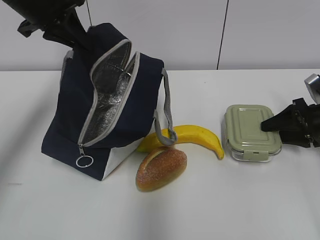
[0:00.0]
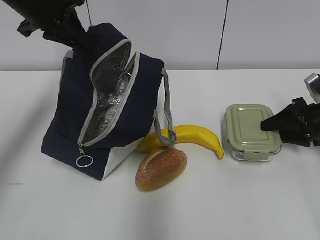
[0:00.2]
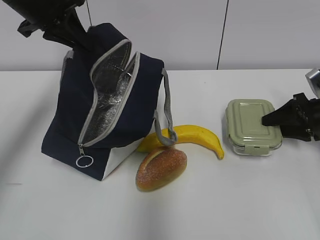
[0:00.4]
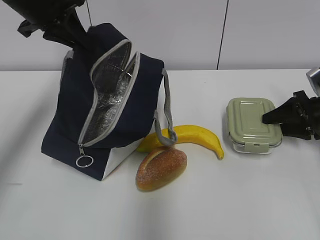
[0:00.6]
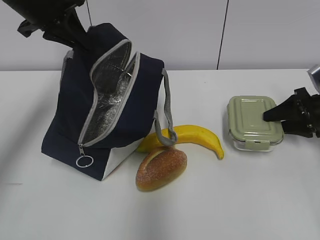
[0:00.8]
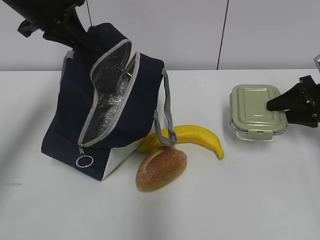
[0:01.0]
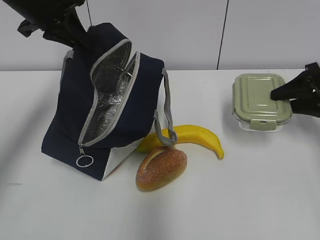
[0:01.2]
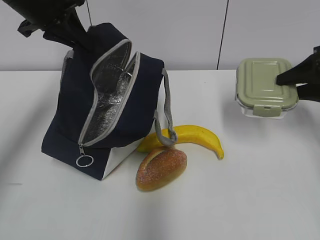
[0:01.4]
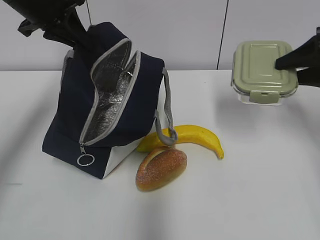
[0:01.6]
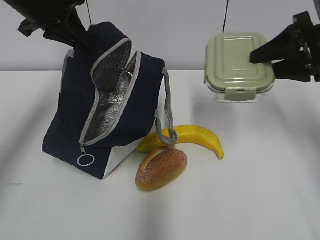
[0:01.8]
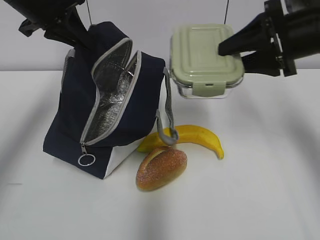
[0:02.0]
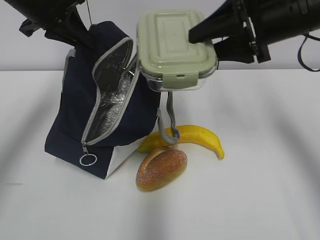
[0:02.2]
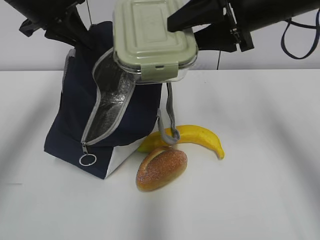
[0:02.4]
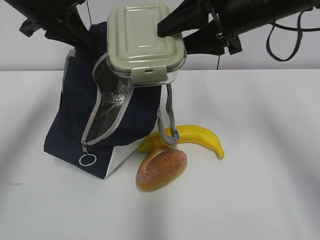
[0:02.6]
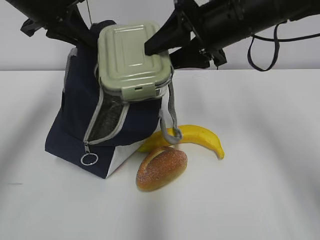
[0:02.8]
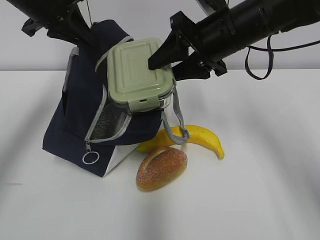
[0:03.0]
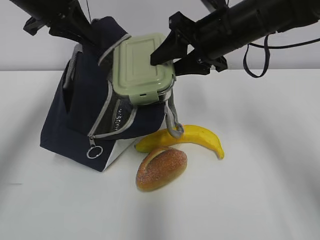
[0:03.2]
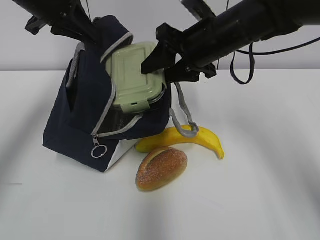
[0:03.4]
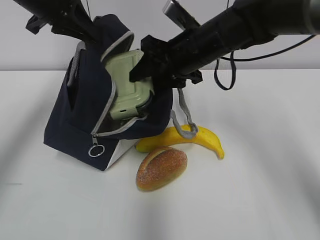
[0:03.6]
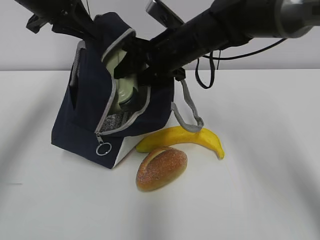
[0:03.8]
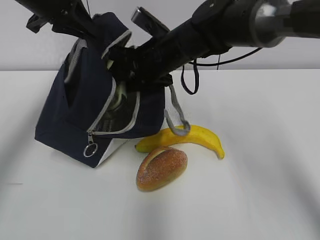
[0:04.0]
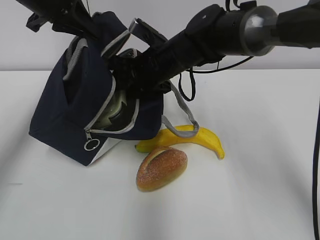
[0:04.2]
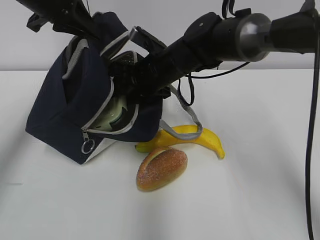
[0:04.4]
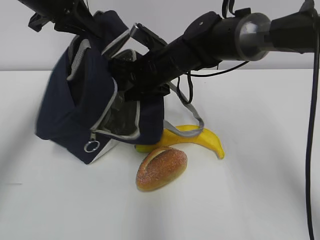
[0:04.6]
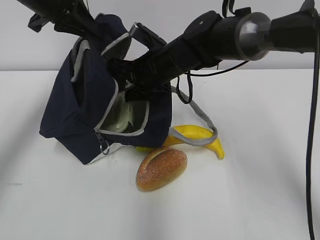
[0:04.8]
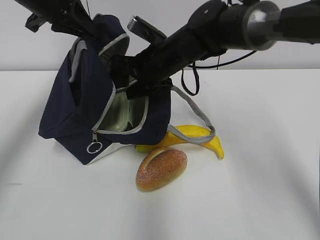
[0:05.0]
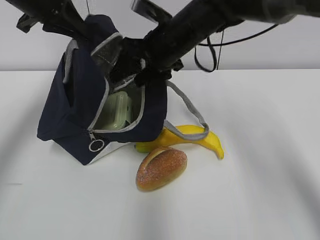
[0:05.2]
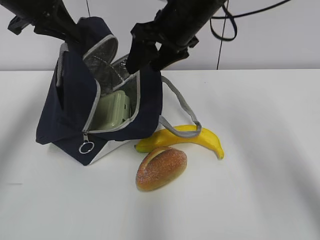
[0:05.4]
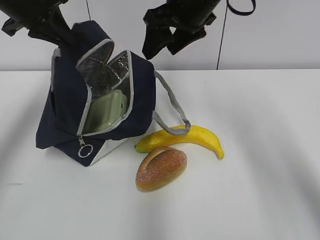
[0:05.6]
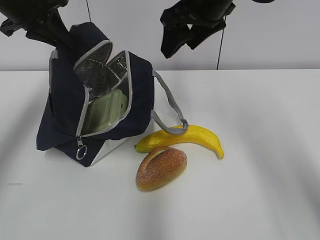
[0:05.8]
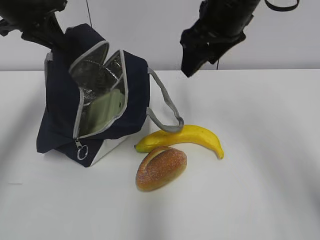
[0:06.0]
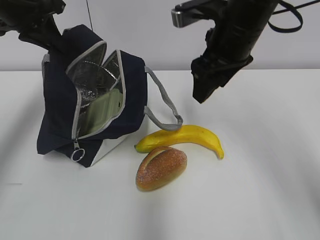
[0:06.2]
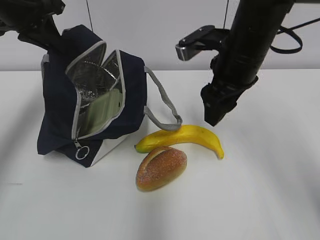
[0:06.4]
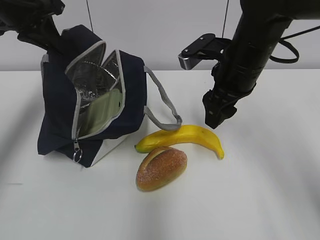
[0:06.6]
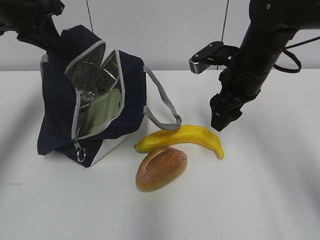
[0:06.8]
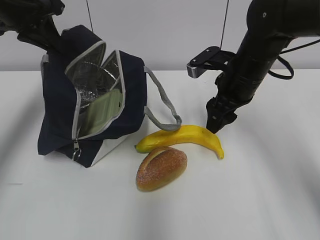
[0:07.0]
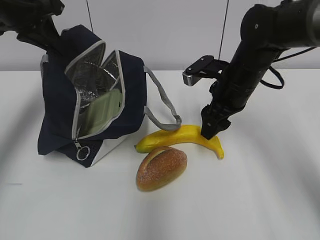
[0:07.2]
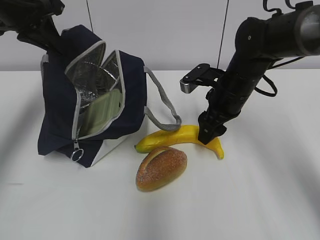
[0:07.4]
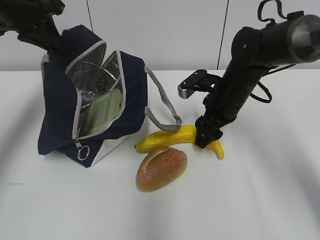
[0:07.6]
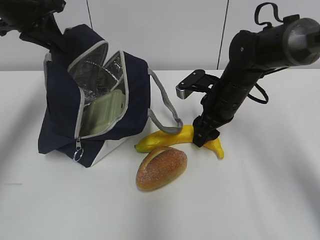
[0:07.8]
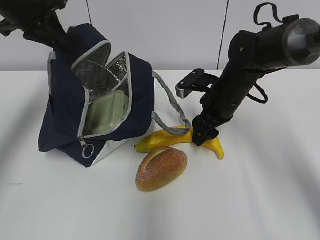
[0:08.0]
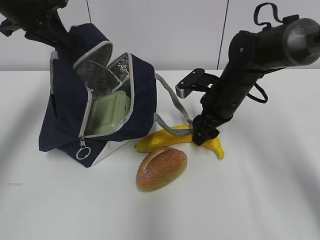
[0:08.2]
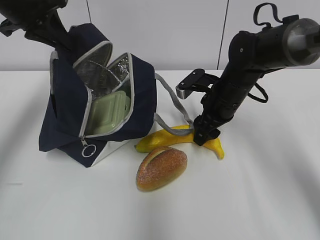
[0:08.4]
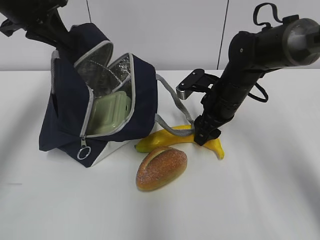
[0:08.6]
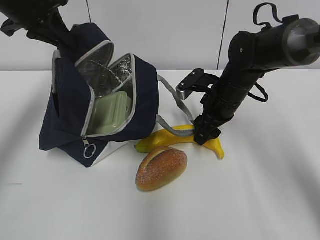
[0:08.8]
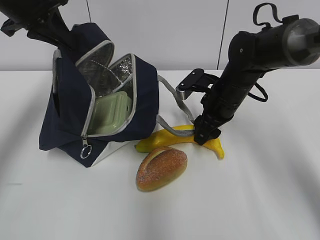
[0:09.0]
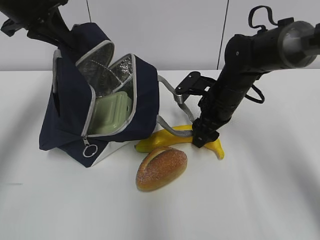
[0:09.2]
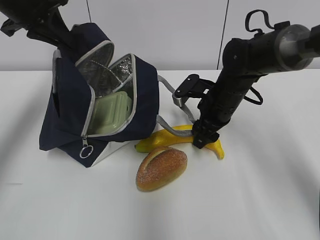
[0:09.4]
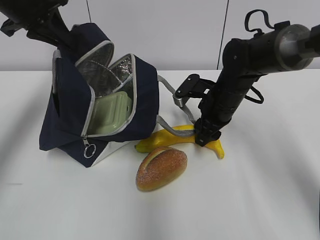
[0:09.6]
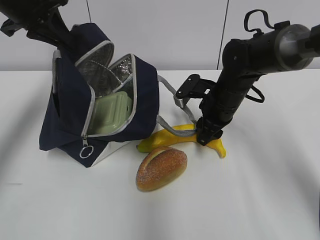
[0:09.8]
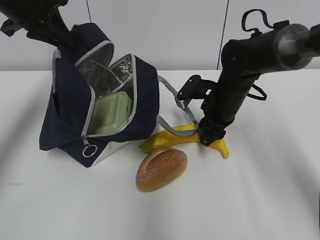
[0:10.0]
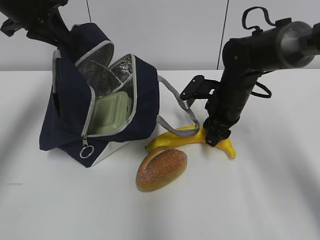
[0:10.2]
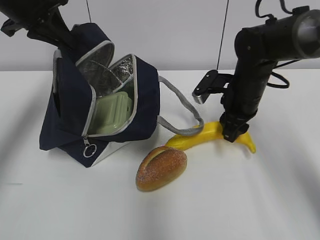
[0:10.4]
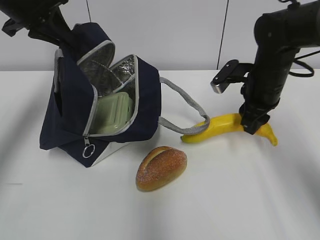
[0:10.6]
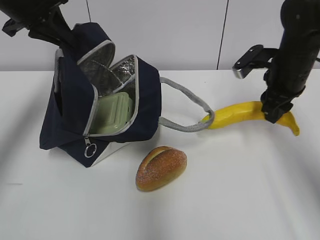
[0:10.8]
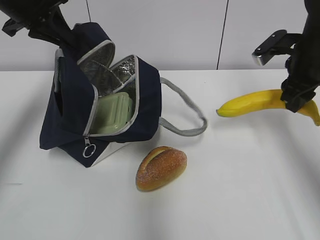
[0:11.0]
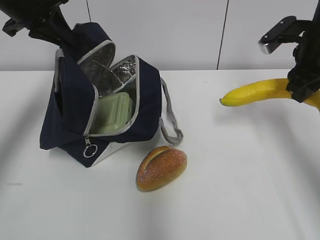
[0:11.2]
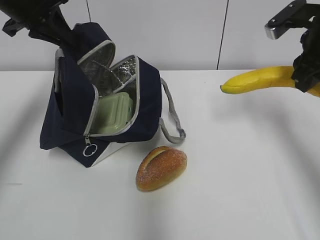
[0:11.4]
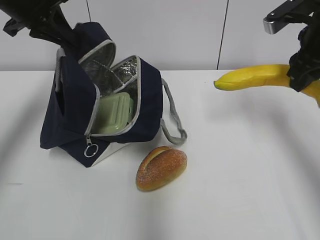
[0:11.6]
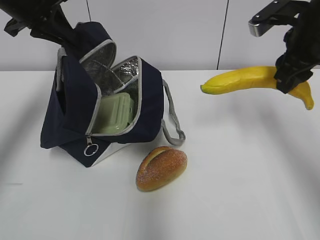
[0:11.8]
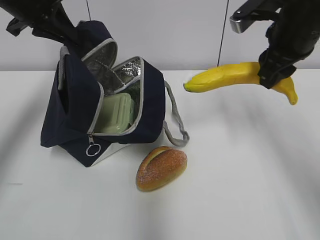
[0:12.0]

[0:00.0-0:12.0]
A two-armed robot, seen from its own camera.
0:00.0 to 0:01.6: The right gripper moves upward, approximately 15 cm.
0:01.6 to 0:03.0: The right gripper goes roughly 20 cm to the left.
0:03.0 to 0:04.4: The right gripper is displaced to the left and downward by about 15 cm.
0:04.4 to 0:06.0: The right gripper travels upward and to the right by some 15 cm.
0:06.0 to 0:07.6: The right gripper heads downward, covering approximately 20 cm.
0:07.6 to 0:10.4: The grippers move only a little.
0:10.4 to 0:12.0: The right gripper is displaced upward by about 15 cm.

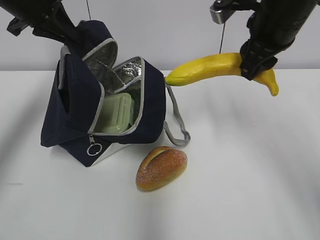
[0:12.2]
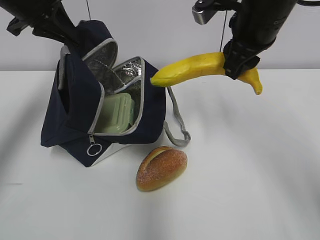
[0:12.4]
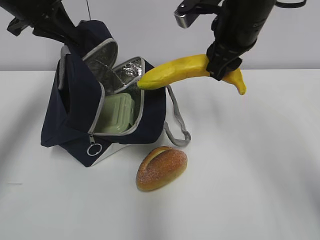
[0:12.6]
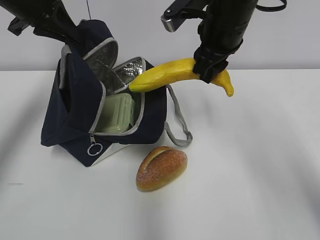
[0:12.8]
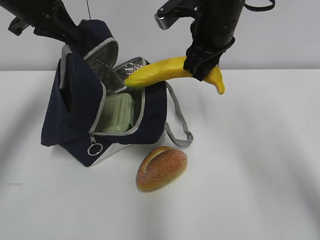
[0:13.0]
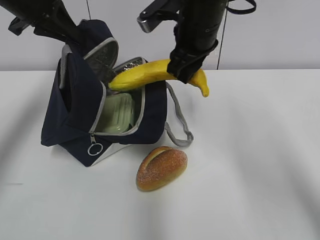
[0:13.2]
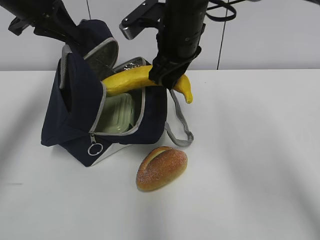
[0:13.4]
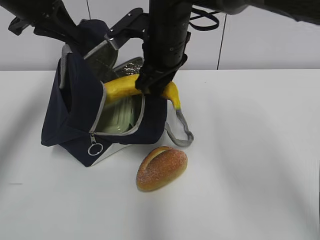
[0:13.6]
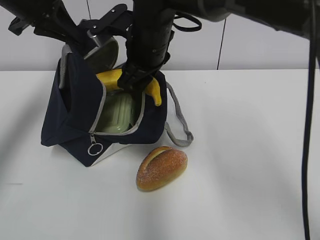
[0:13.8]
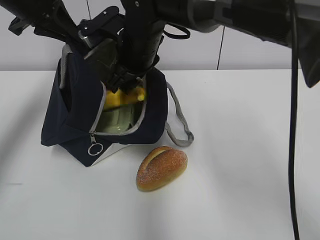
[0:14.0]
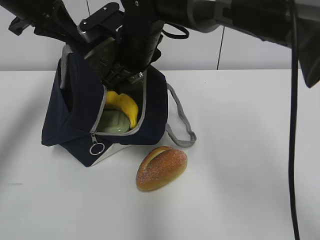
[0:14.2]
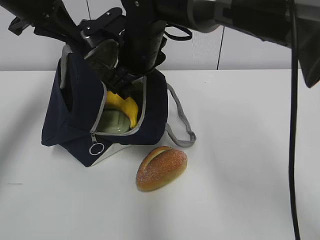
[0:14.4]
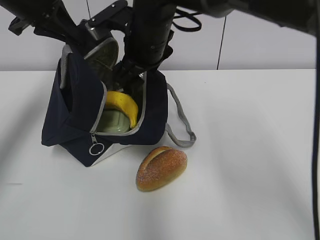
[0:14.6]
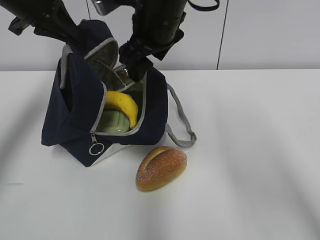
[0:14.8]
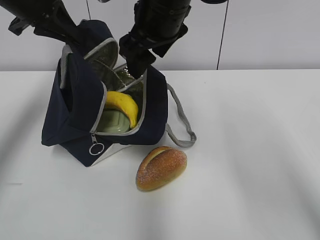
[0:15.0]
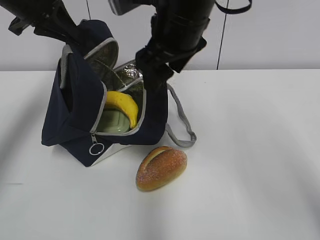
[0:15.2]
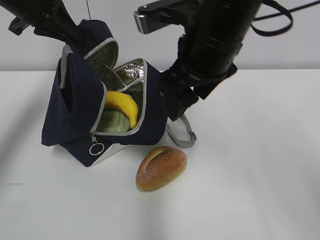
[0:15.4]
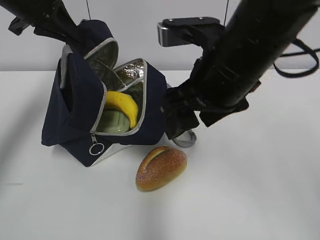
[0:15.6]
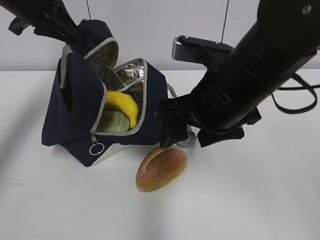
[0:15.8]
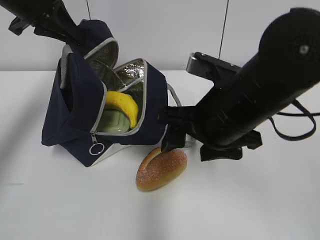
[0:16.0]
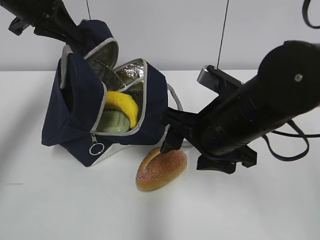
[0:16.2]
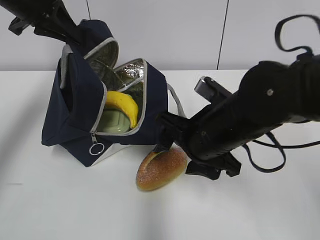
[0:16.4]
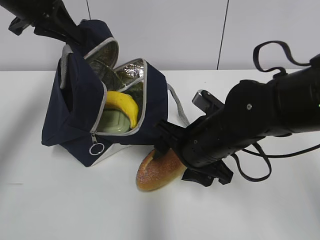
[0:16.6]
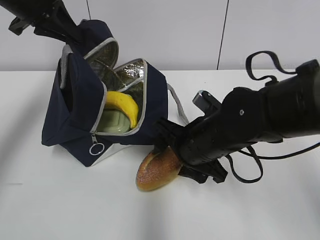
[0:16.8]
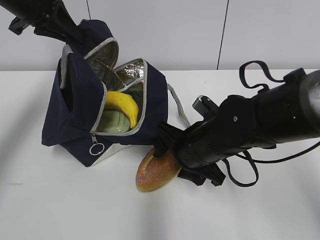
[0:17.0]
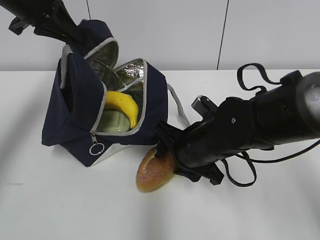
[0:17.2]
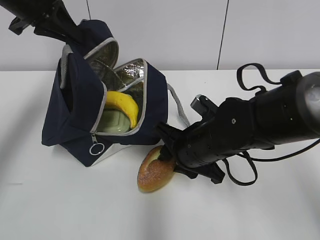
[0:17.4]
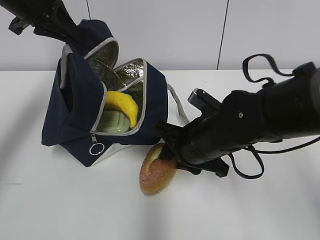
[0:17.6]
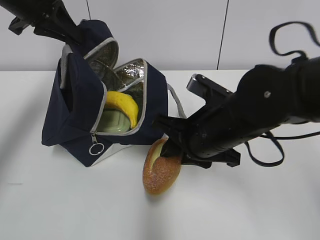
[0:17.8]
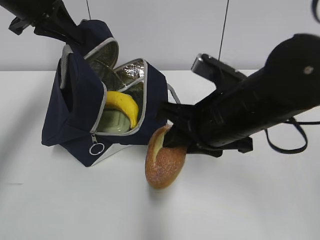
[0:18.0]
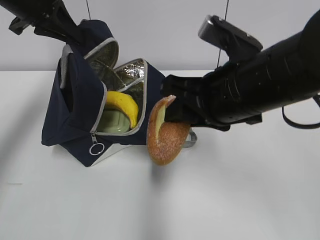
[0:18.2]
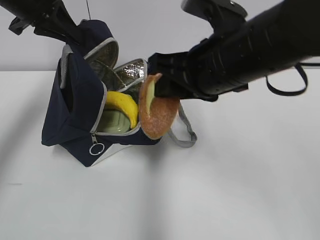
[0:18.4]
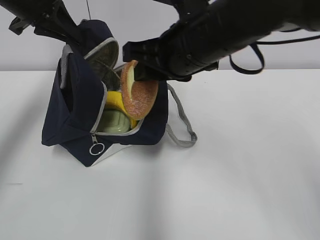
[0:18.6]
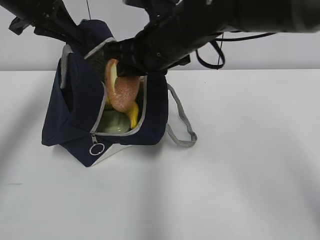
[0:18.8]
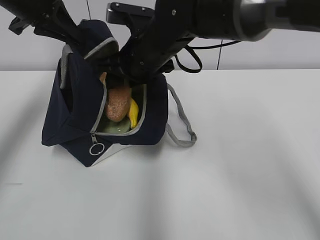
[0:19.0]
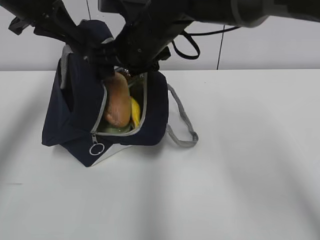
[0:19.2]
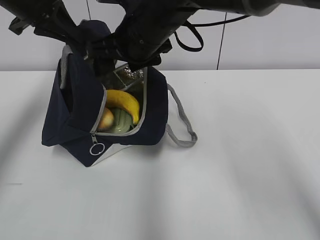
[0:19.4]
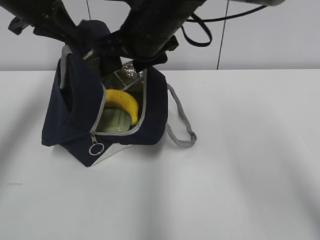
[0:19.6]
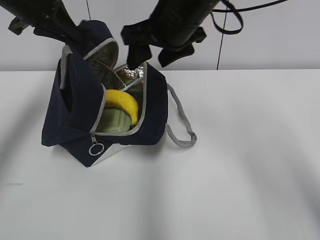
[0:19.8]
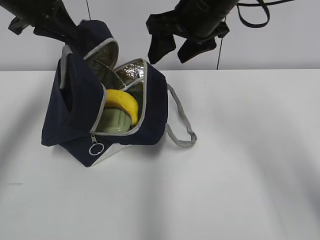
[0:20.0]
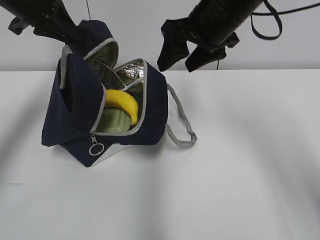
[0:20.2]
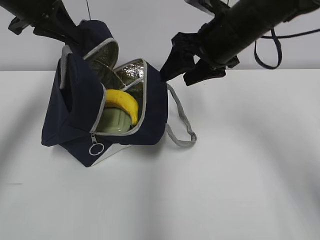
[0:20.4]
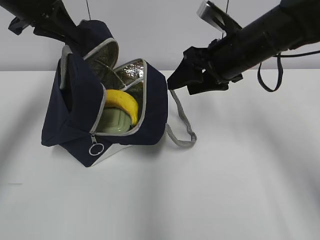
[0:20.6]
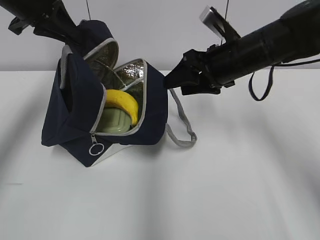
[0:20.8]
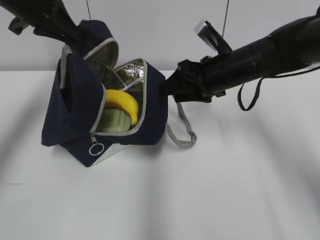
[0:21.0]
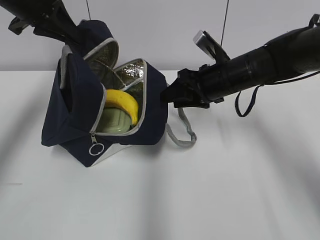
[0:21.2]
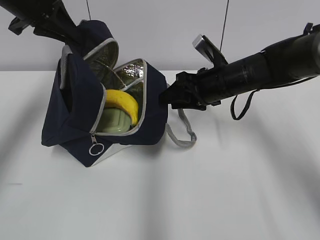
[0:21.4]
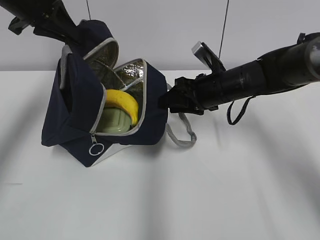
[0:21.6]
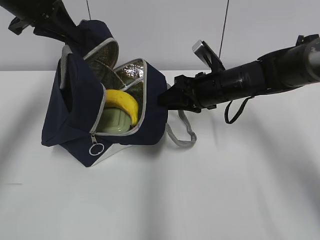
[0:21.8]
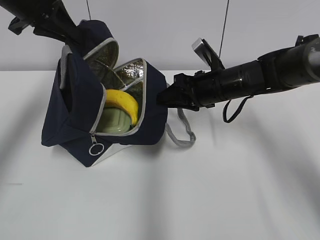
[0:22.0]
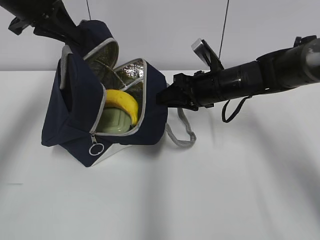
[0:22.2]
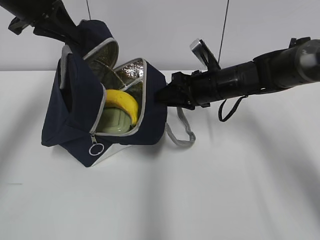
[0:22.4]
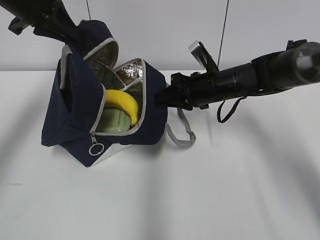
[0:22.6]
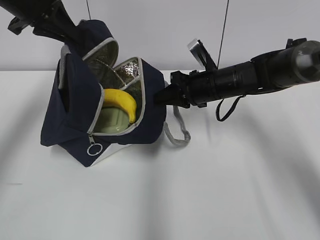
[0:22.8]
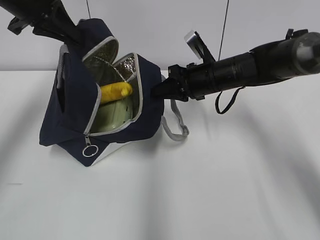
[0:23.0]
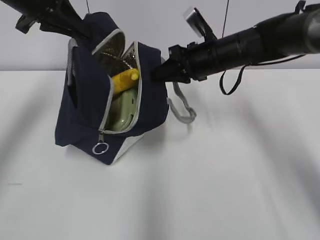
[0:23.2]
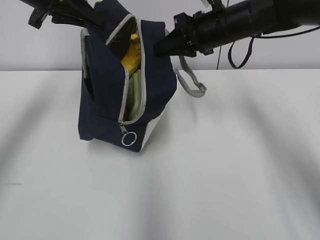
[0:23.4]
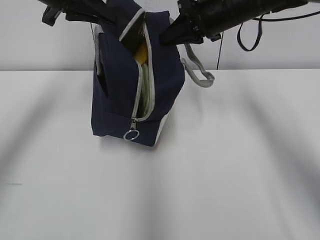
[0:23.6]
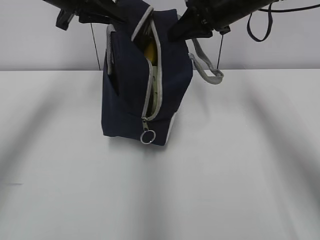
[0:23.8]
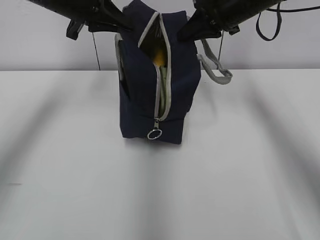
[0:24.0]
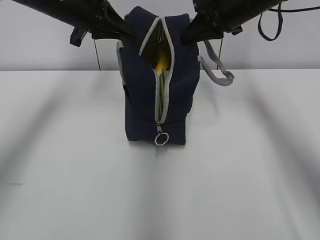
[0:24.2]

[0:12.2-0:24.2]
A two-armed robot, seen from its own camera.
0:12.2 to 0:13.8: The right gripper moves to the left, some 20 cm.
0:13.8 to 0:15.2: The right gripper travels upward and backward by roughly 10 cm, and opens its fingers.
0:15.2 to 0:16.6: The right gripper travels downward and backward by approximately 15 cm.
0:16.6 to 0:18.2: The right gripper travels upward by roughly 10 cm, and closes its fingers.
0:18.2 to 0:19.8: The right gripper goes approximately 15 cm forward, and opens its fingers.
0:19.8 to 0:21.2: The right gripper travels downward and to the right by about 15 cm.
0:21.2 to 0:22.6: The right gripper closes up.
0:22.6 to 0:24.2: The right gripper travels upward by about 15 cm; the left gripper travels to the right by about 5 cm.
